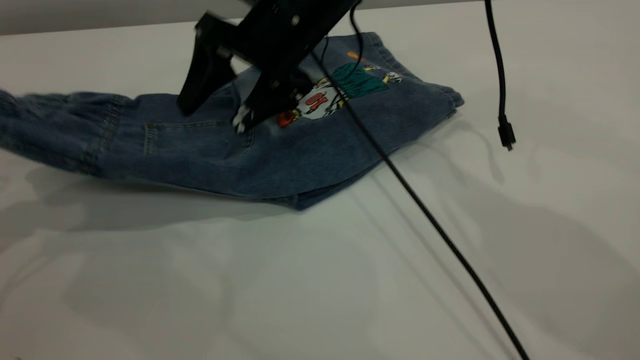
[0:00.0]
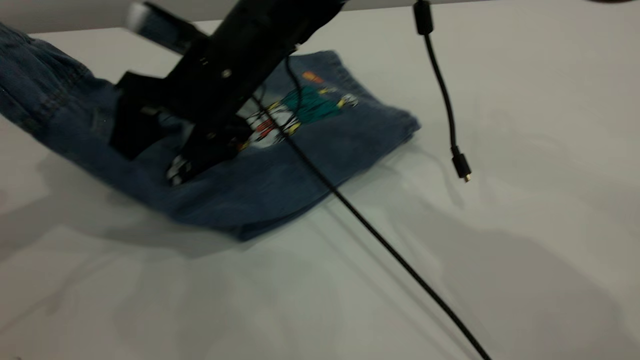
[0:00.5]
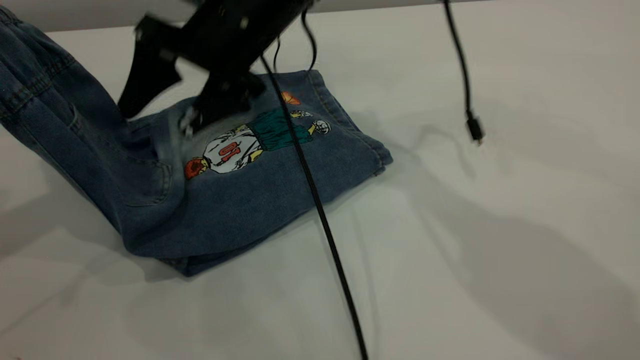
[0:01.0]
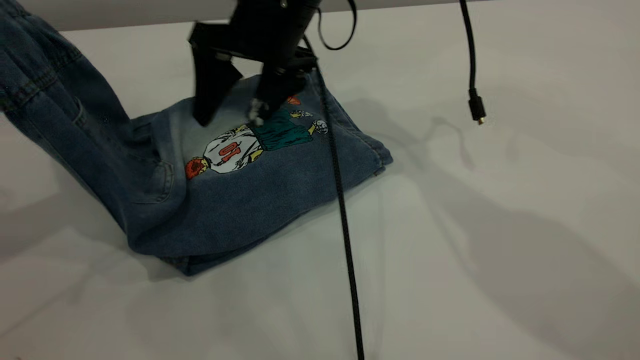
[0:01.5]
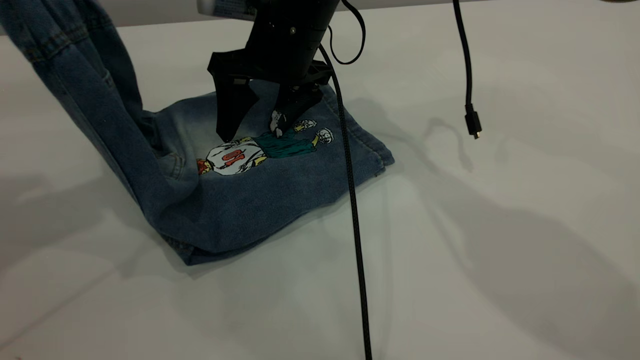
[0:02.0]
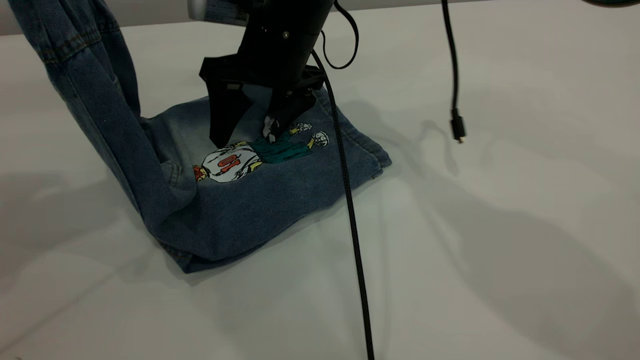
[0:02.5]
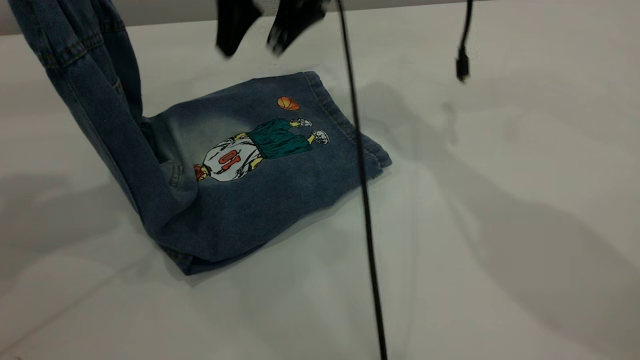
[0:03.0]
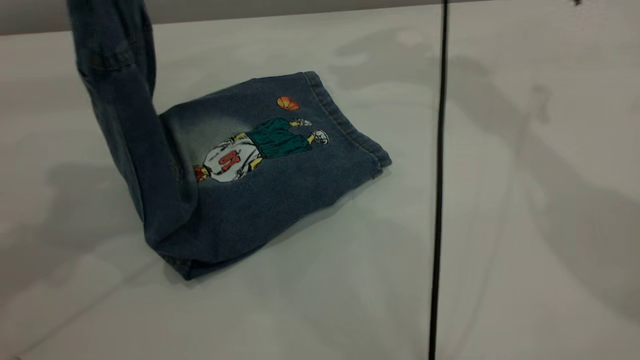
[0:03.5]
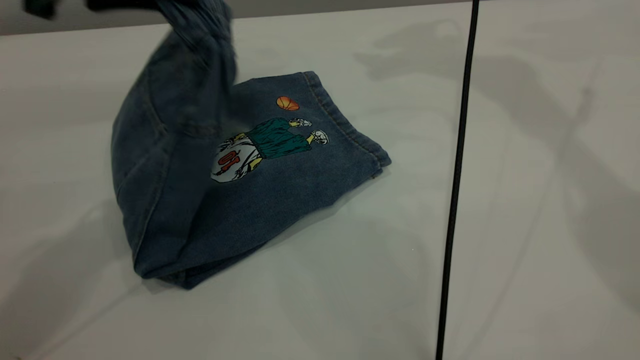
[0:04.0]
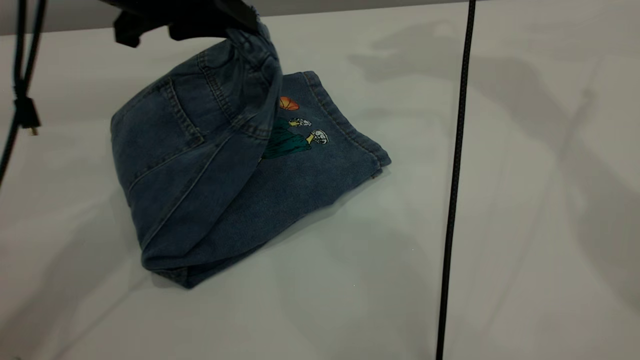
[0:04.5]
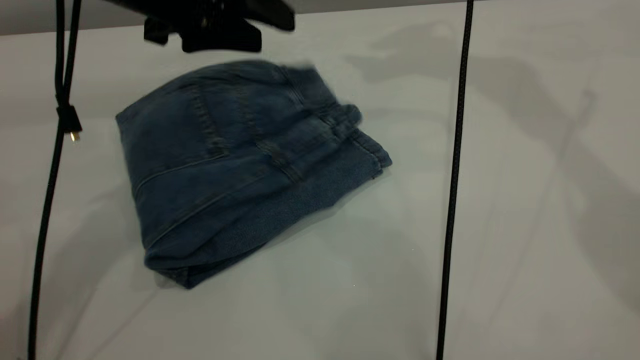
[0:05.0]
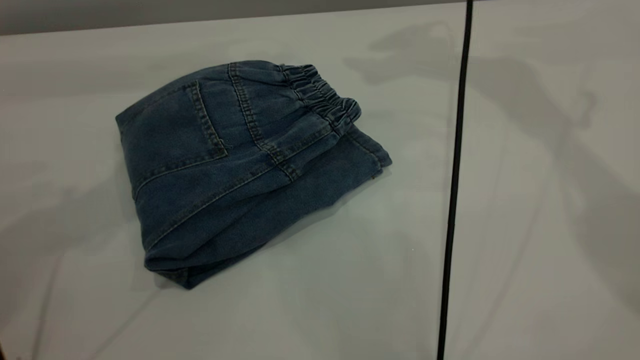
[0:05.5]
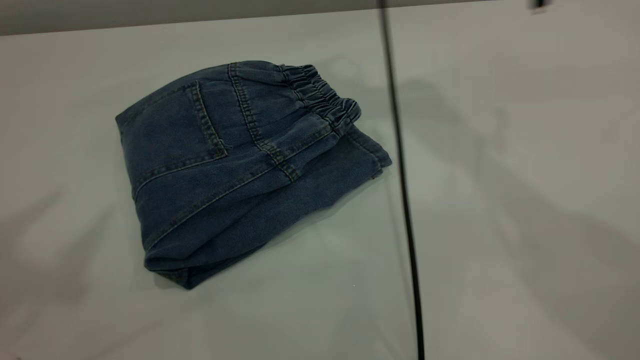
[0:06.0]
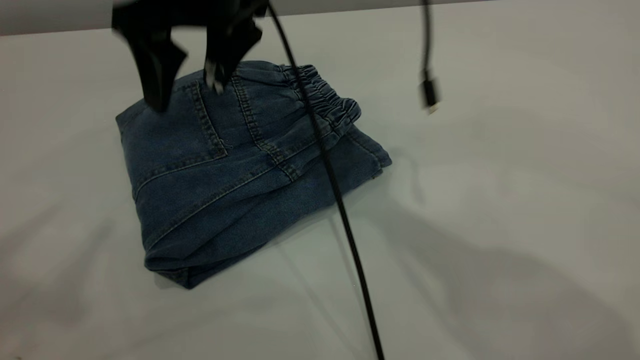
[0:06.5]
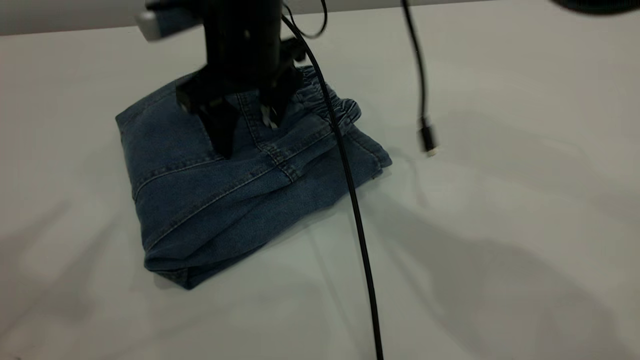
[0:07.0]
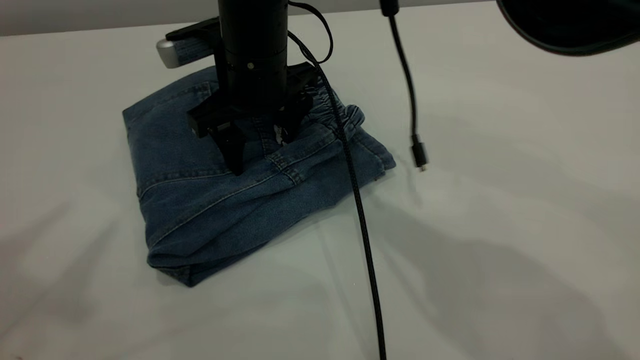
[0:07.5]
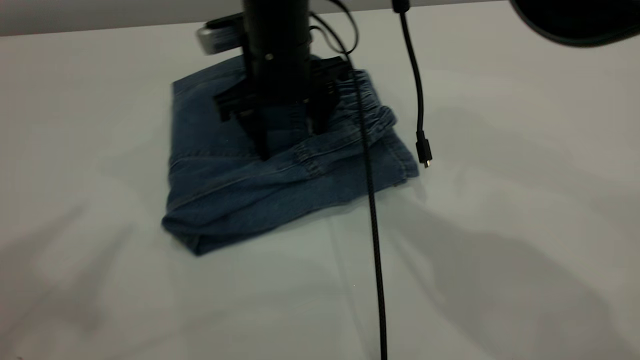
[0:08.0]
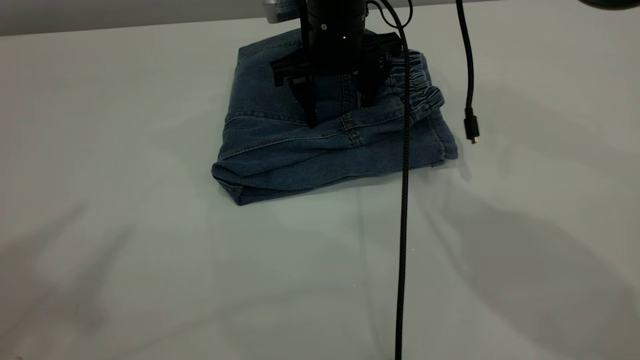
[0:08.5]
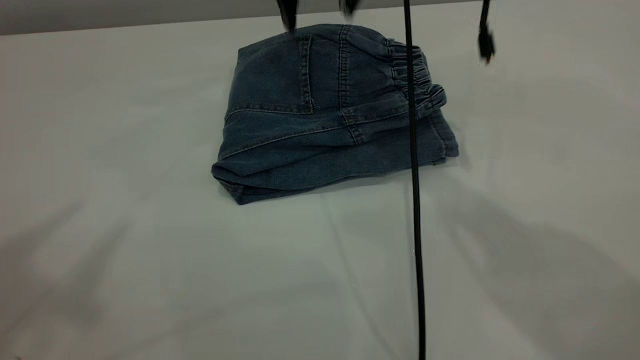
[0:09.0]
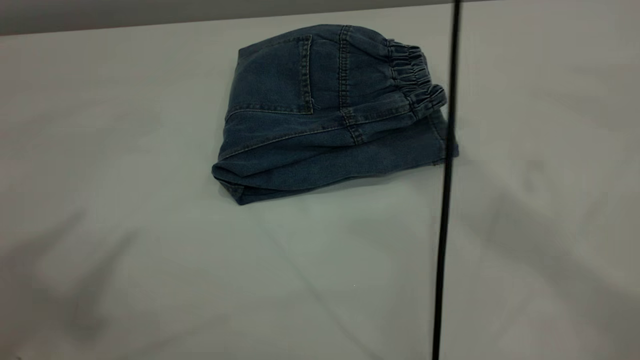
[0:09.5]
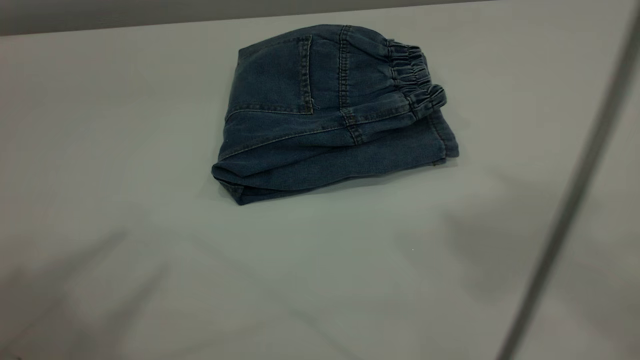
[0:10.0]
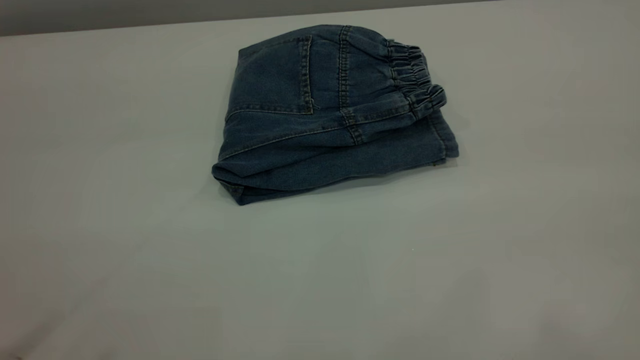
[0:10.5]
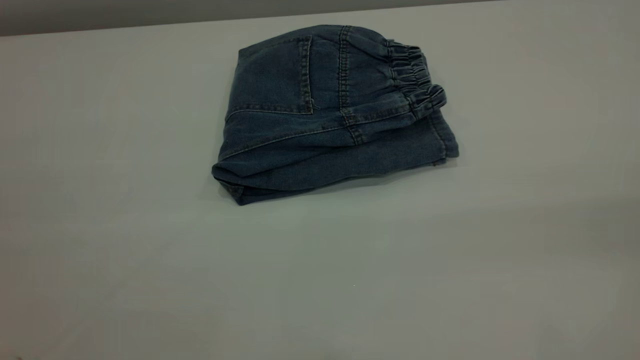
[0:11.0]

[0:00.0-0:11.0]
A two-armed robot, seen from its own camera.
Step, 0:00.0 to 0:06.0: Fold your pants from right to left.
0:00.0 to 0:02.0: The left gripper is displaced upward and to the right by some 10 cm.
0:02.0 to 0:03.5: The left gripper is displaced to the right by some 5 cm. Meanwhile the right gripper is displaced upward, to the right and forward by roughly 20 cm.
0:03.5 to 0:05.5: The right gripper shifts approximately 5 cm upward; the left gripper reaches approximately 10 cm downward, then returns, and opens.
0:05.5 to 0:07.5: The right gripper is displaced downward, to the left and backward by about 35 cm; the left gripper travels upward, backward and to the left by approximately 20 cm.
0:07.5 to 0:09.0: The right gripper moves upward and to the right, roughly 15 cm.
0:09.0 to 0:11.0: The right gripper heads backward and to the right, covering approximately 50 cm, while the left gripper is displaced backward and downward by roughly 15 cm.

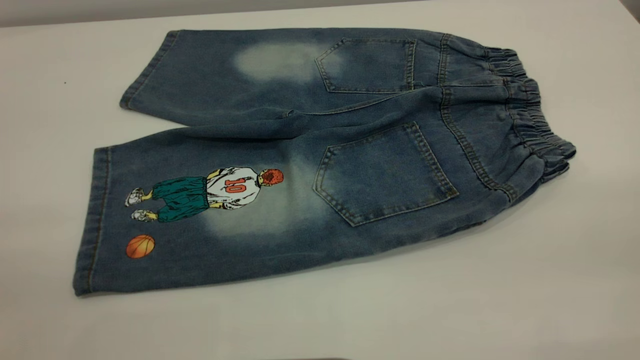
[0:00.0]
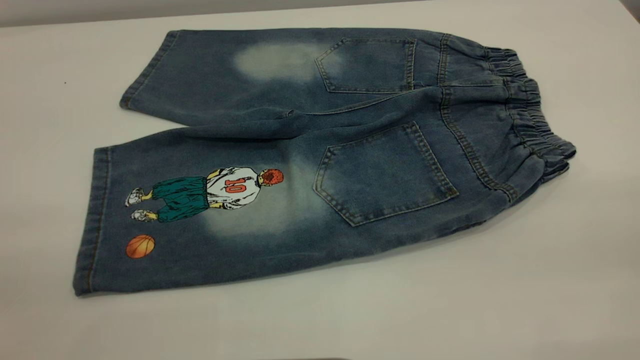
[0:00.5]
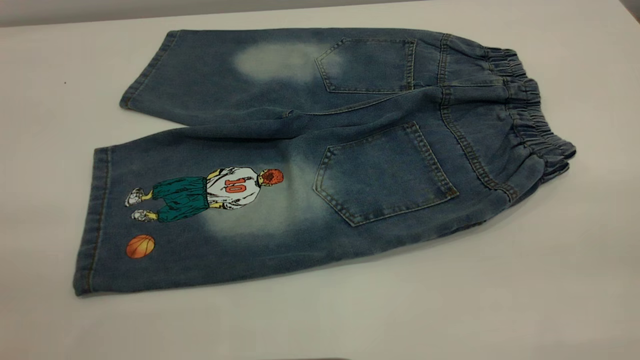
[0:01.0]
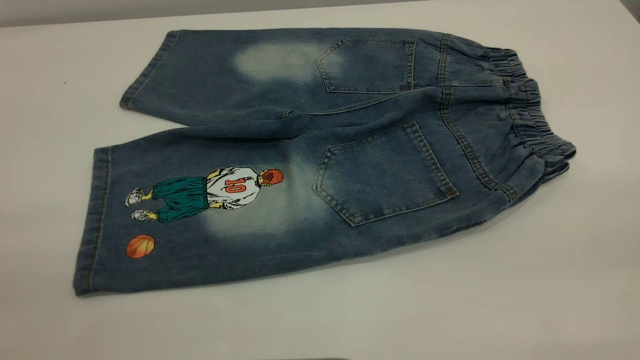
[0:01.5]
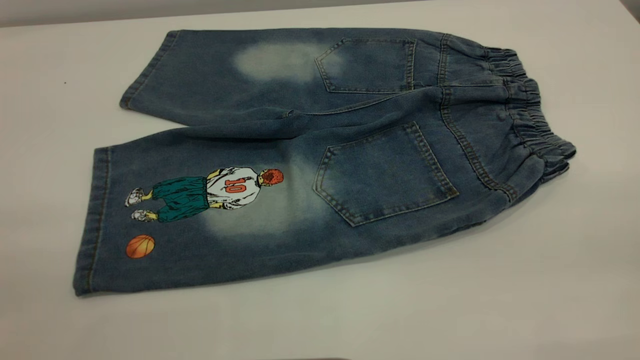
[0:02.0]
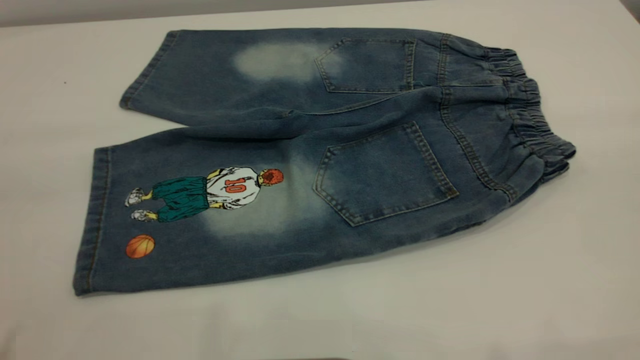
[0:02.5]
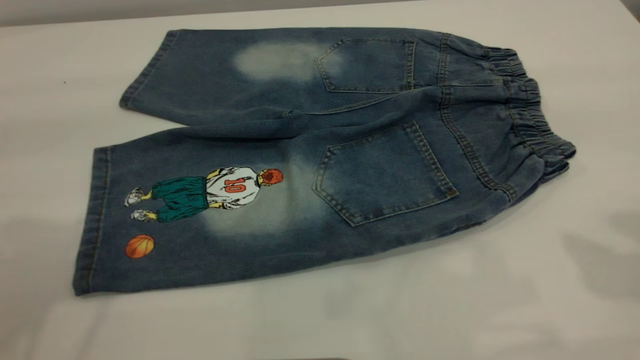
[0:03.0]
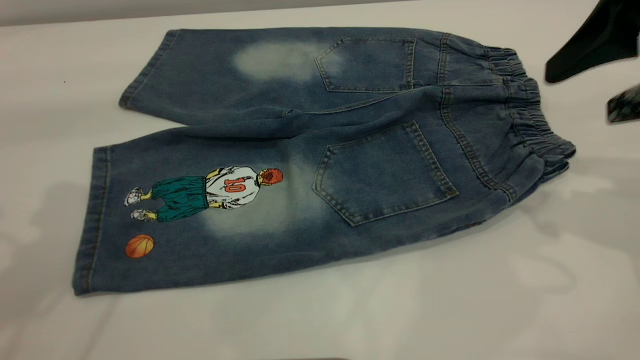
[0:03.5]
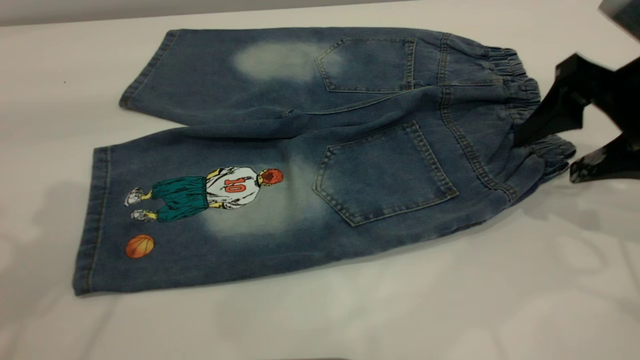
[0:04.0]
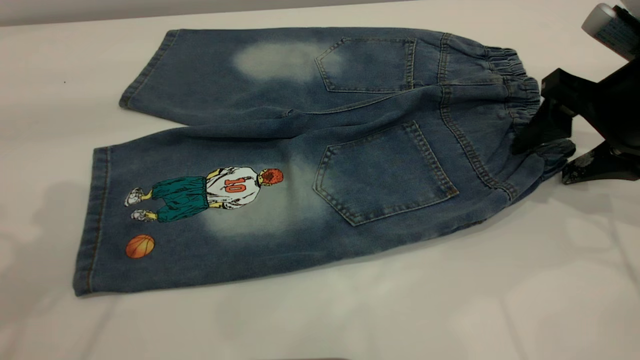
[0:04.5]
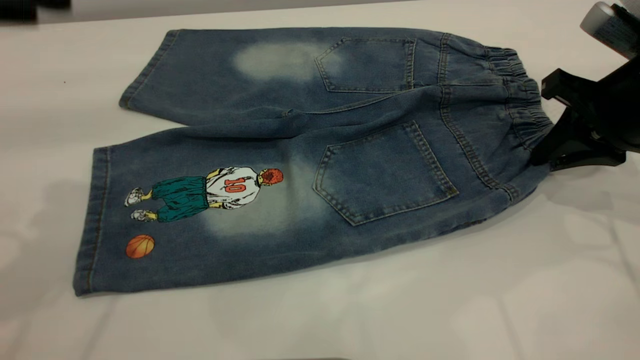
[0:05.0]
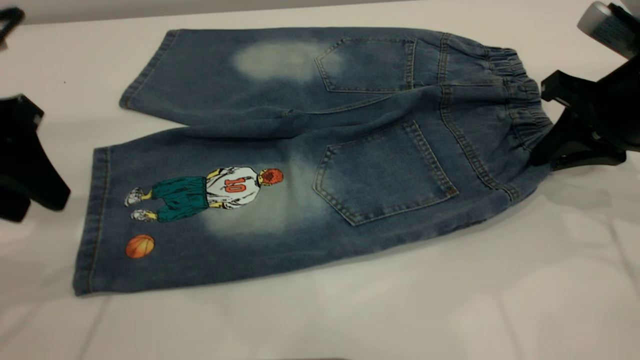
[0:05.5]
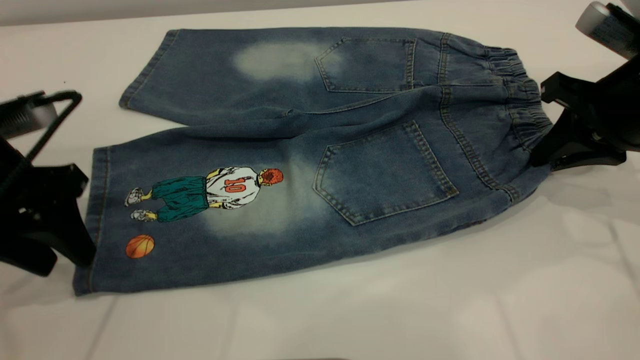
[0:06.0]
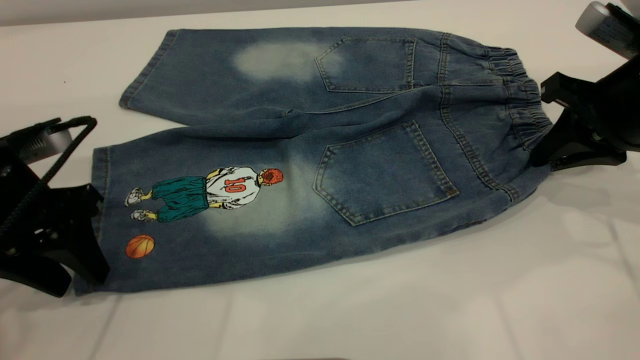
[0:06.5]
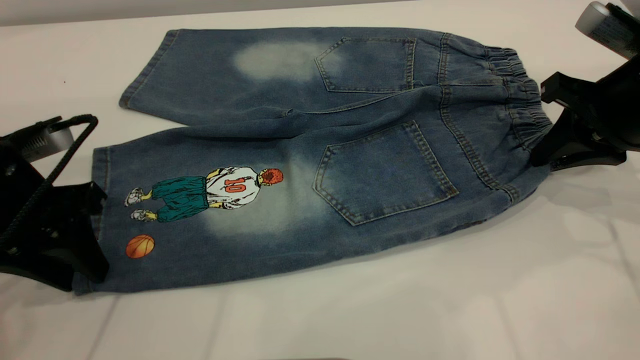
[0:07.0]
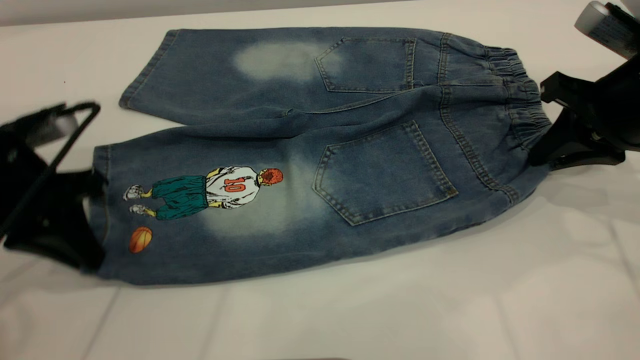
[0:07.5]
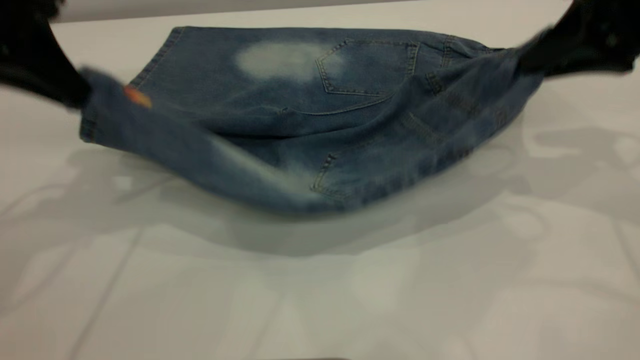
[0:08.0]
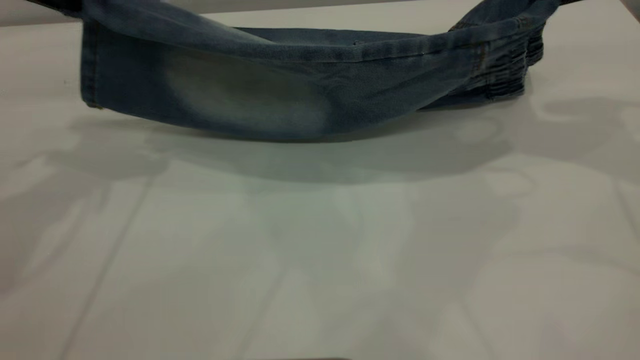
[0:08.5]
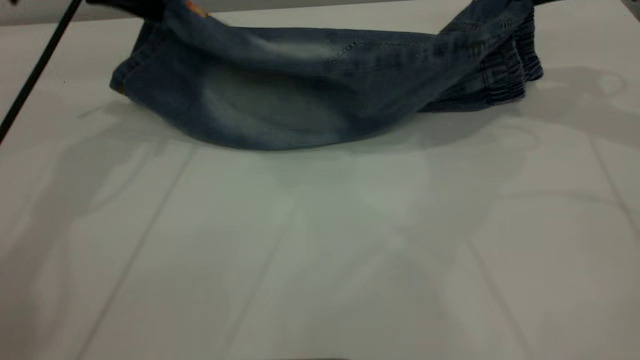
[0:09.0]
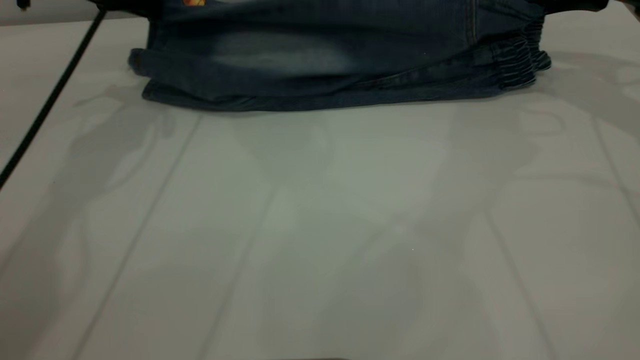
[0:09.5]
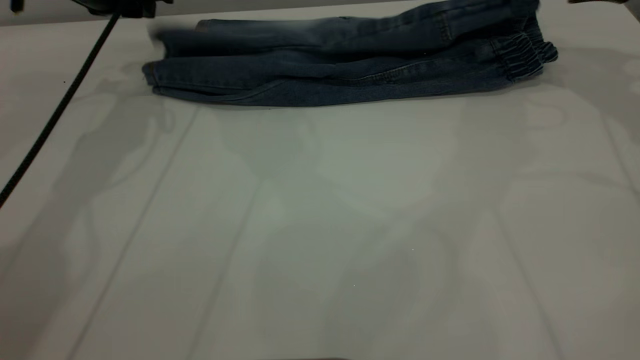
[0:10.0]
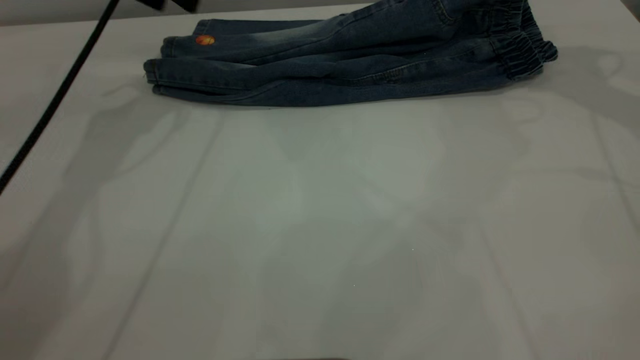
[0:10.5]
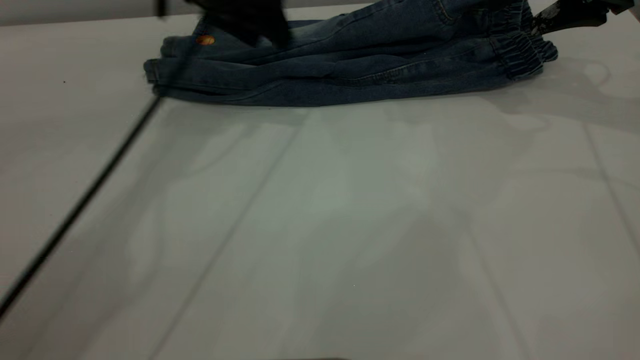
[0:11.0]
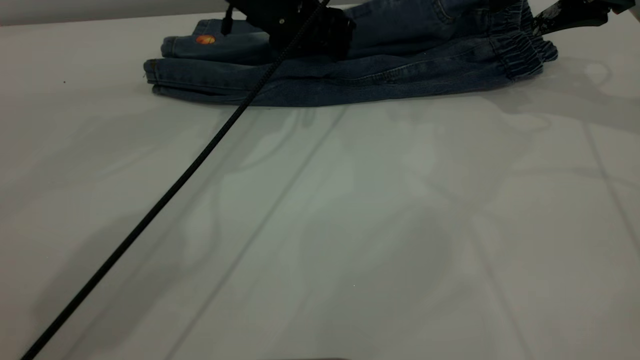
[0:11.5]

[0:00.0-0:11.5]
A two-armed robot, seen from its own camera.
Step, 0:00.0 to 0:10.0: Fold the bottom of the pants upward.
0:00.0 to 0:02.0: Neither gripper changes place.
0:02.0 to 0:04.0: The right gripper heads forward and downward, covering roughly 35 cm.
0:04.0 to 0:06.0: The right gripper closes, while the left gripper goes about 15 cm downward.
0:06.0 to 0:07.5: The left gripper closes up.
0:07.5 to 0:09.5: The right gripper moves forward and upward, some 15 cm. The left gripper shifts about 20 cm forward.
0:09.5 to 0:11.5: The left gripper is displaced to the right by about 20 cm, and opens its fingers, while the right gripper opens its fingers.
